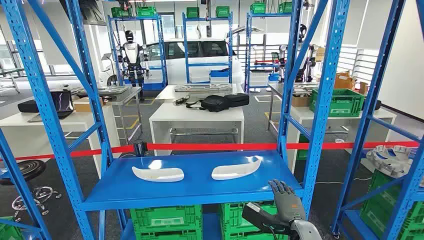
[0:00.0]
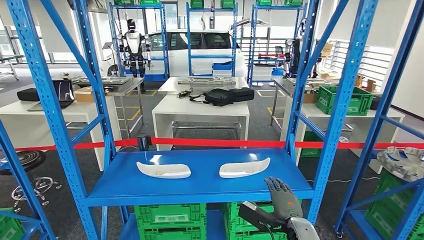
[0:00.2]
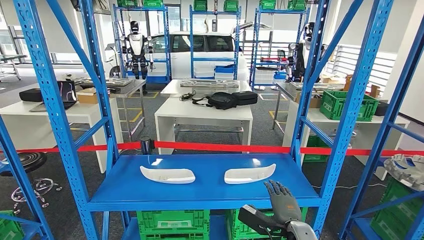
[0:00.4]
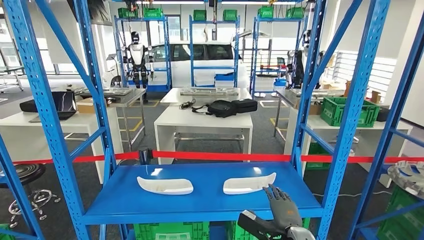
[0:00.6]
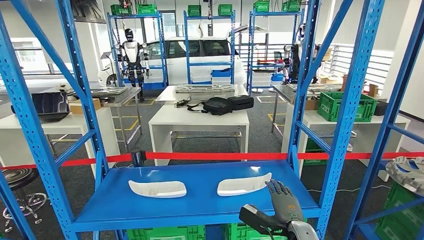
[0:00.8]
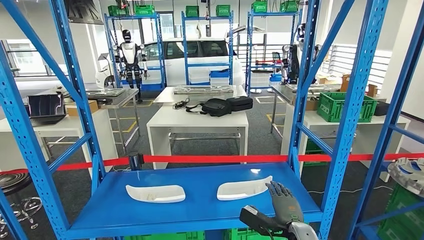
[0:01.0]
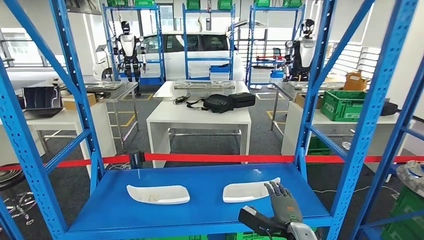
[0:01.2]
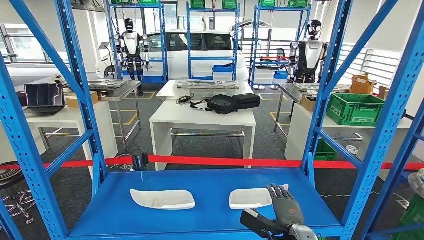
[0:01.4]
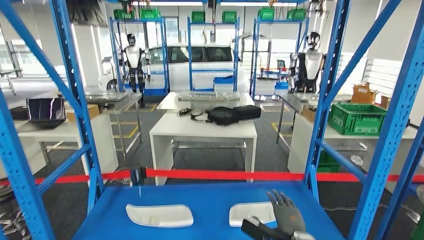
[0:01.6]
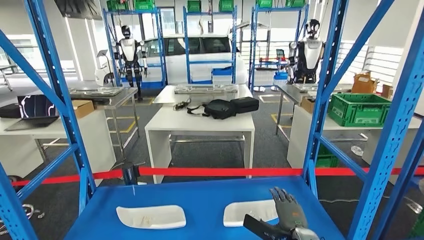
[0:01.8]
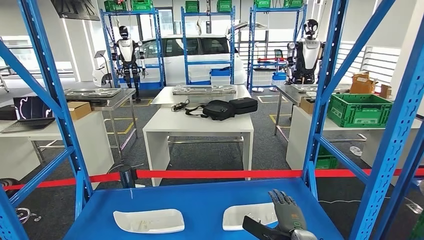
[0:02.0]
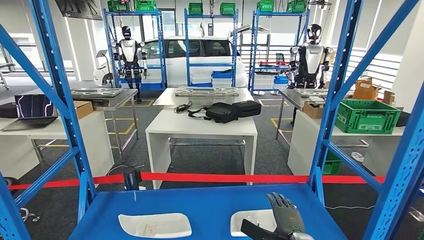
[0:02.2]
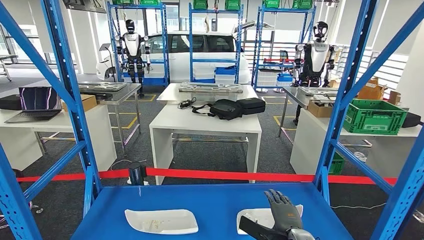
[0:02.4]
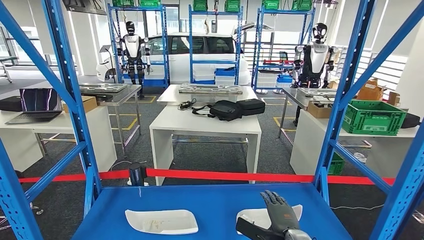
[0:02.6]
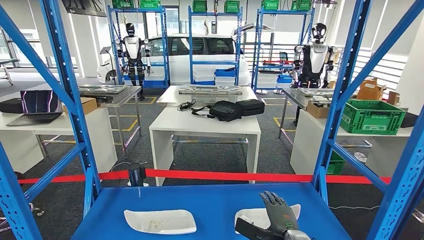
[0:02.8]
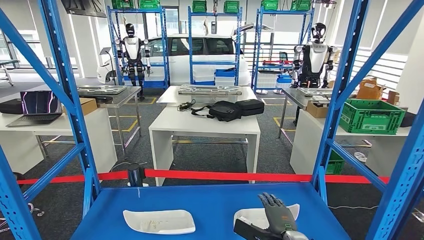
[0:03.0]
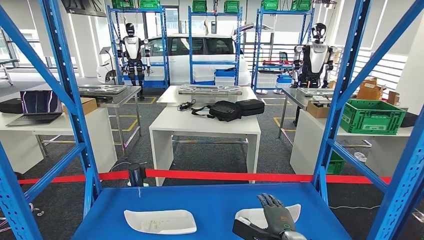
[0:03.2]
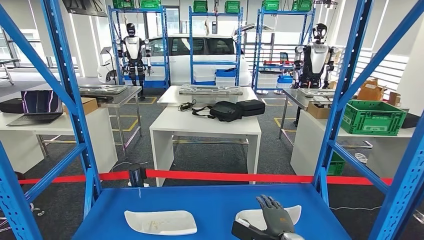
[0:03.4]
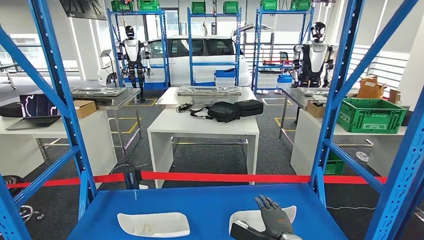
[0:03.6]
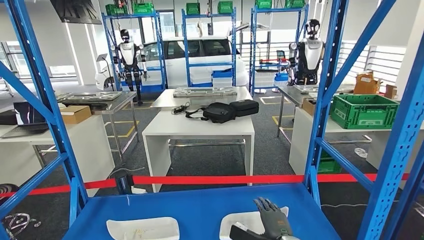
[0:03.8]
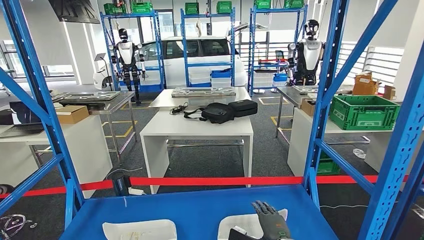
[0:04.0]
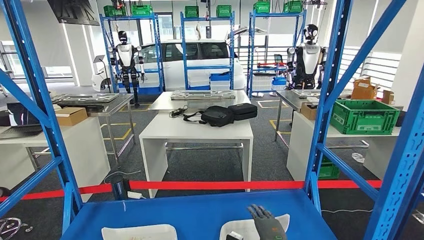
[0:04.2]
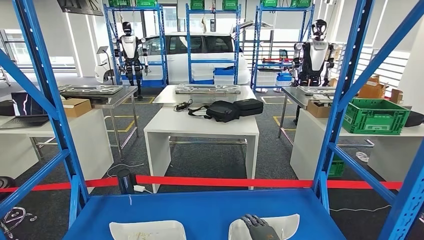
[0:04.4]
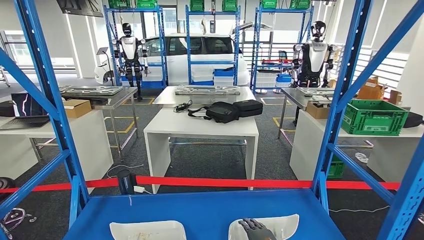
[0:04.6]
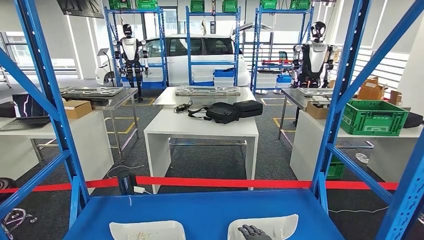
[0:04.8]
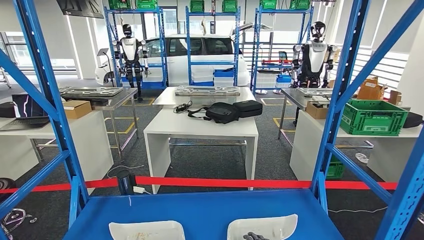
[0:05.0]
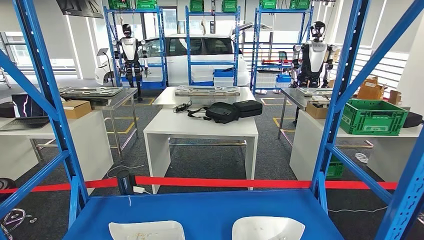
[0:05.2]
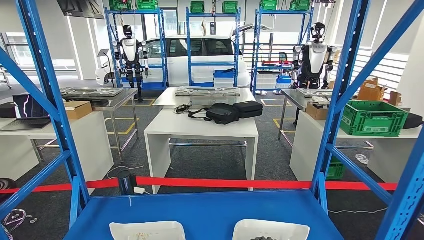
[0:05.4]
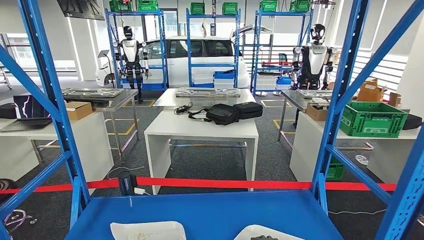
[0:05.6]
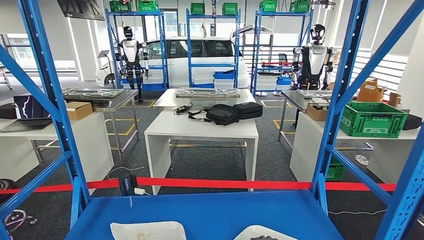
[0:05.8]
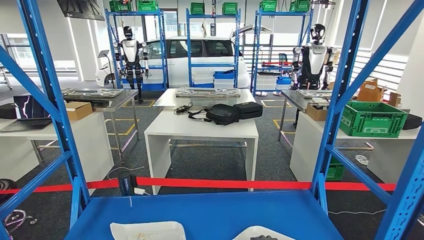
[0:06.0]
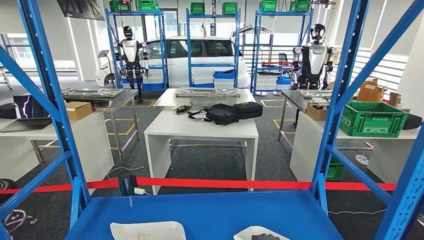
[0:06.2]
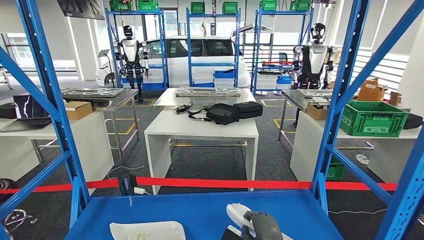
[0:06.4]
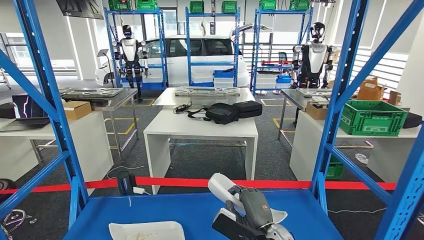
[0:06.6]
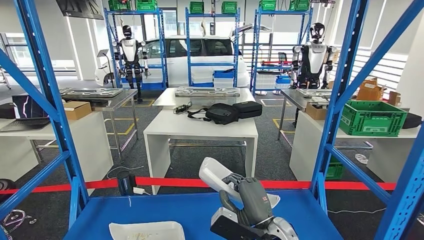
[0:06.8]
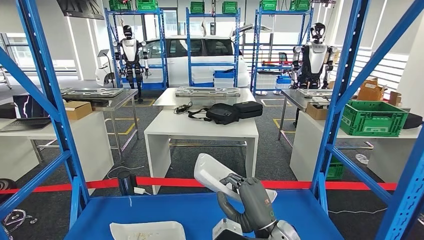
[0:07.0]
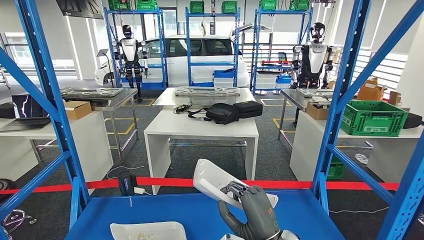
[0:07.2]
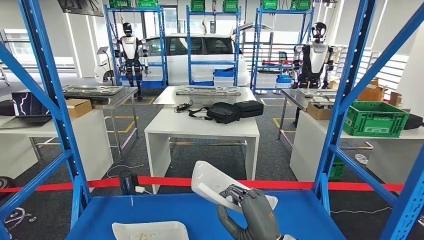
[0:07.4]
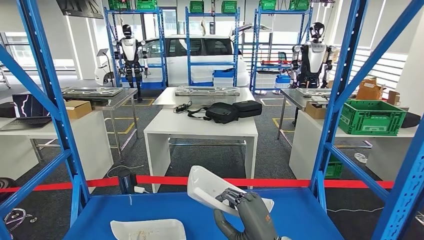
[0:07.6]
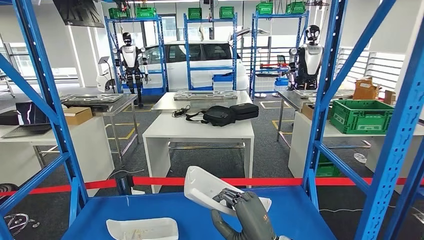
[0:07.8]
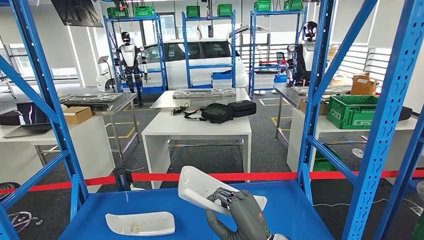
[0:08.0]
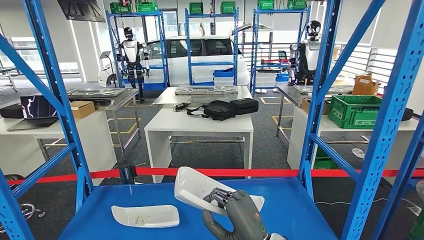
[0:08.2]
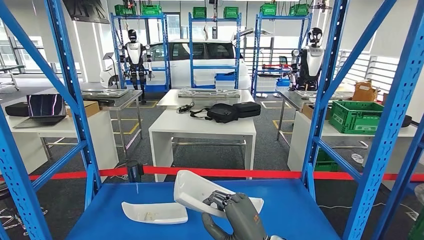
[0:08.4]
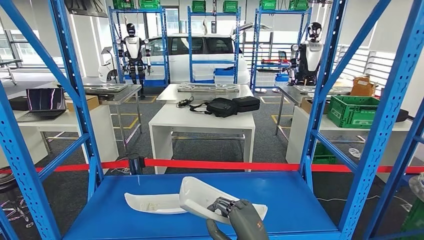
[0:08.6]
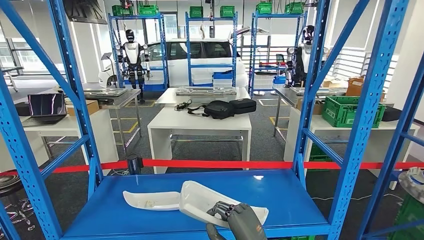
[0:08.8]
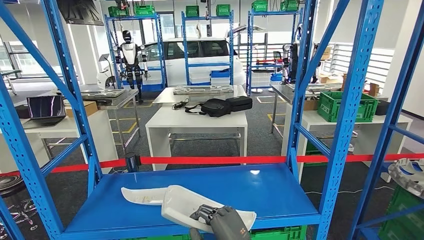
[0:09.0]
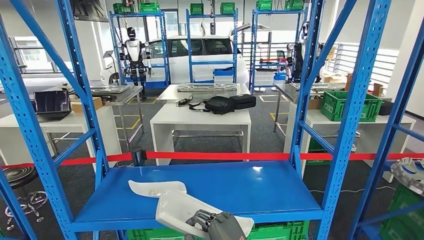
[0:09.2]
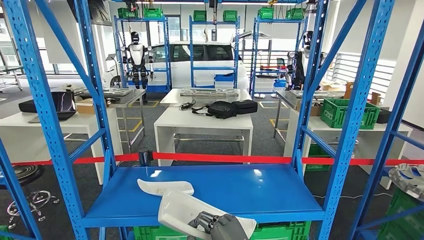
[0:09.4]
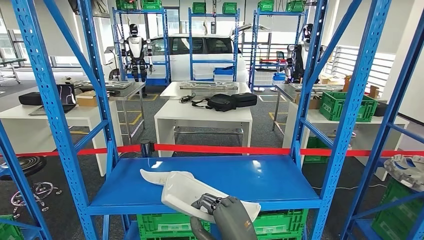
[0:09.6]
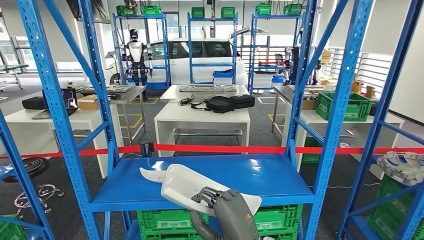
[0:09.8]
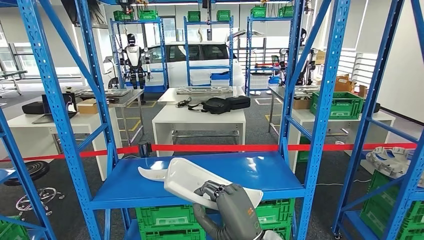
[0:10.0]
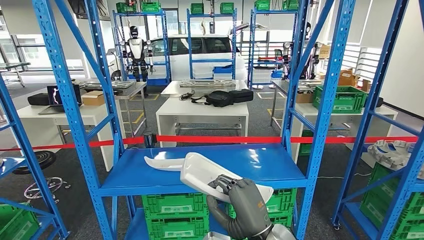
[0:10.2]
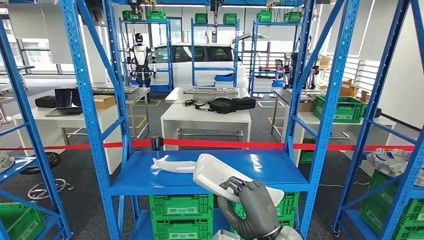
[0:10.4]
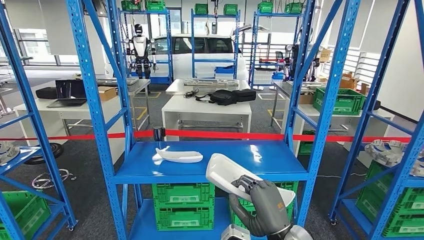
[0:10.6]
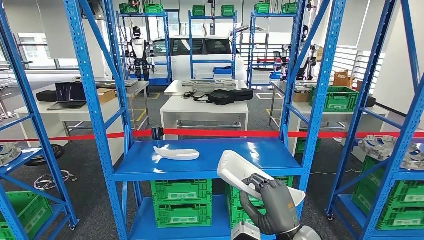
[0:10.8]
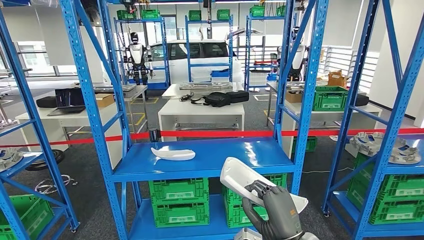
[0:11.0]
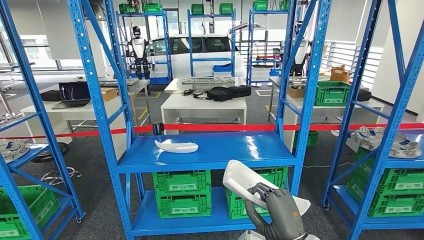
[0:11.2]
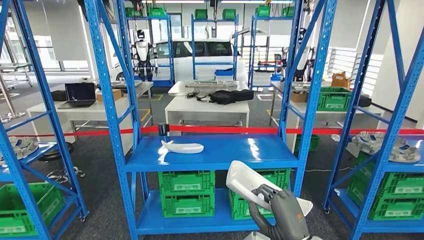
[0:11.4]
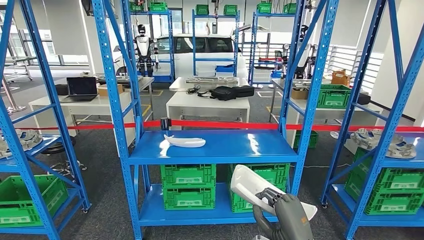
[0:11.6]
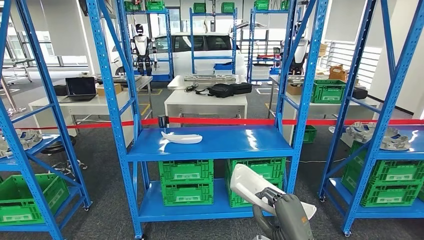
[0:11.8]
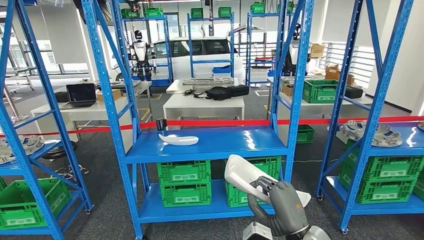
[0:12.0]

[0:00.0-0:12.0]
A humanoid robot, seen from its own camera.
Step, 0:00.0 to 0:07.8: Pick up the small component from the shelf.

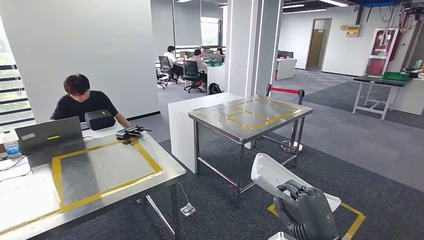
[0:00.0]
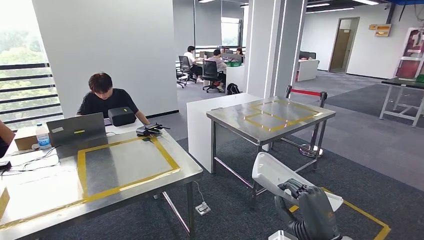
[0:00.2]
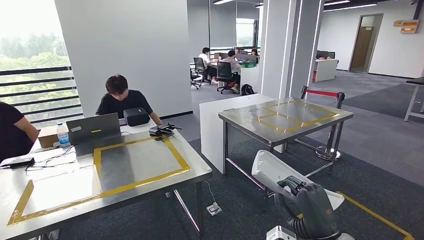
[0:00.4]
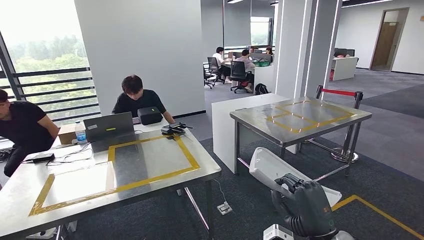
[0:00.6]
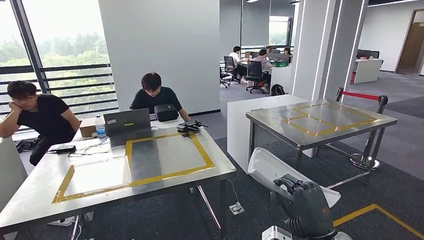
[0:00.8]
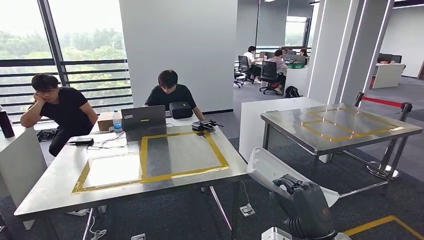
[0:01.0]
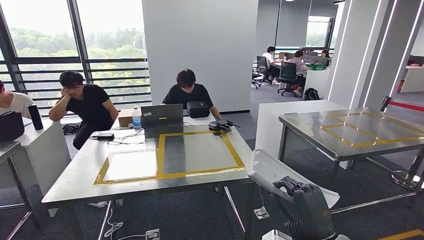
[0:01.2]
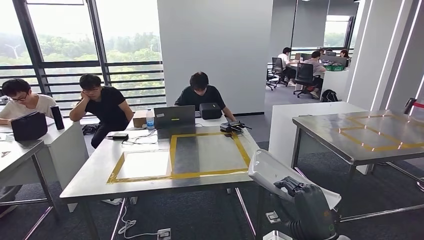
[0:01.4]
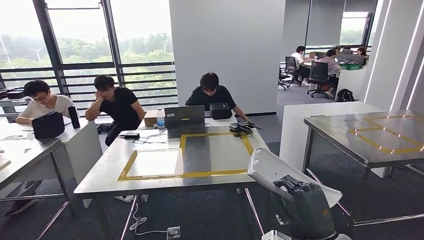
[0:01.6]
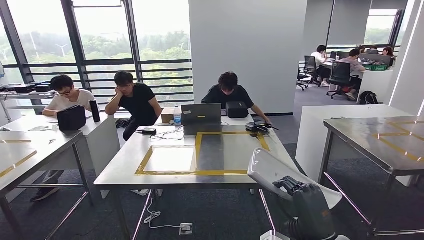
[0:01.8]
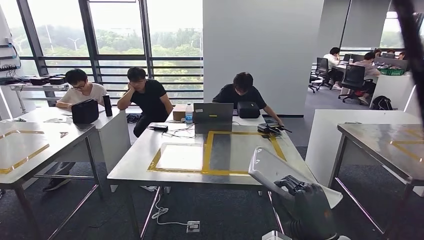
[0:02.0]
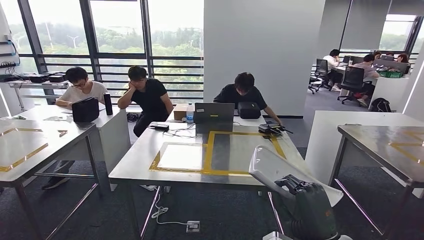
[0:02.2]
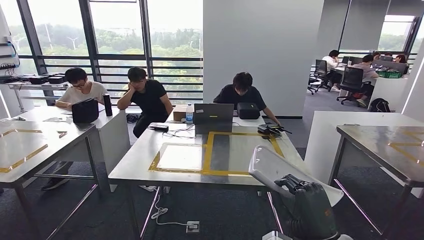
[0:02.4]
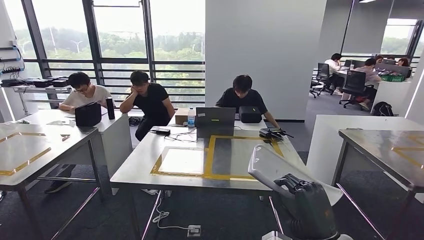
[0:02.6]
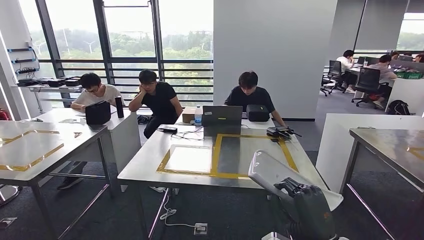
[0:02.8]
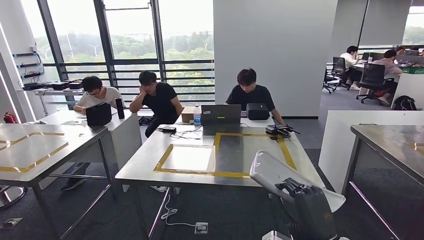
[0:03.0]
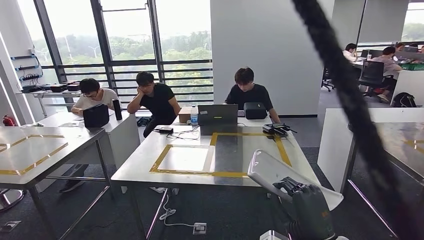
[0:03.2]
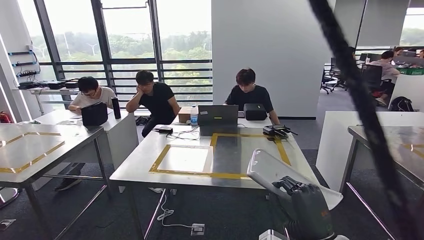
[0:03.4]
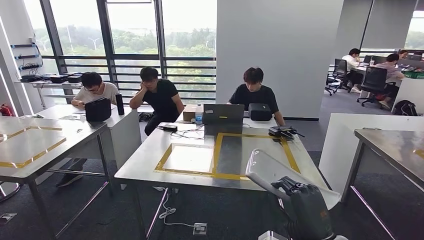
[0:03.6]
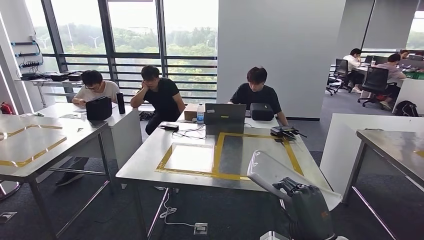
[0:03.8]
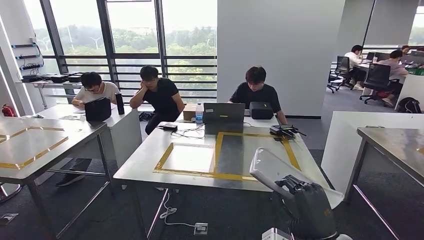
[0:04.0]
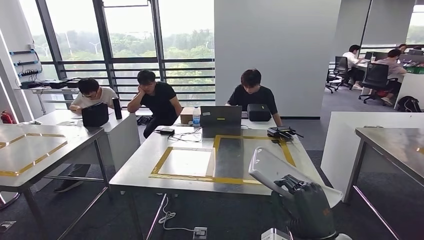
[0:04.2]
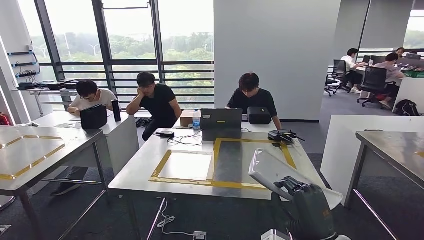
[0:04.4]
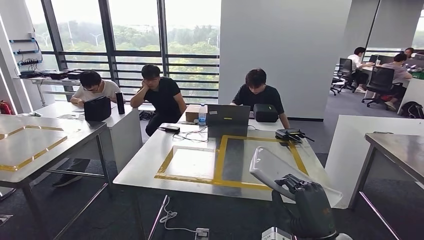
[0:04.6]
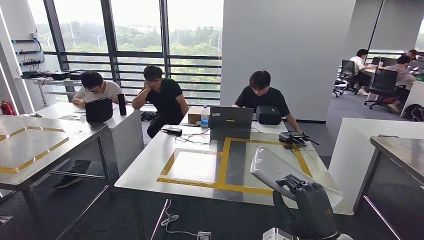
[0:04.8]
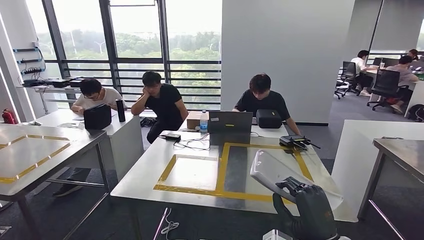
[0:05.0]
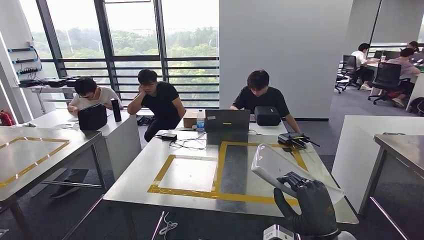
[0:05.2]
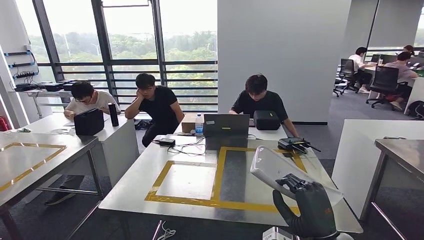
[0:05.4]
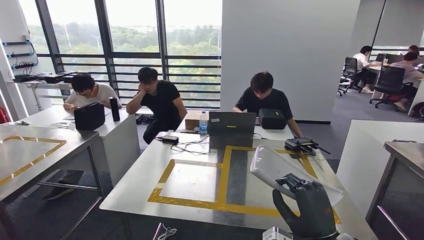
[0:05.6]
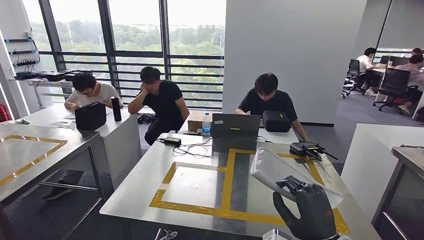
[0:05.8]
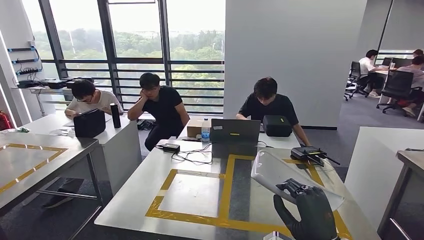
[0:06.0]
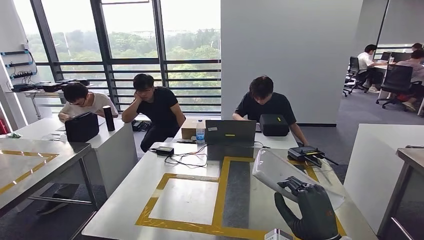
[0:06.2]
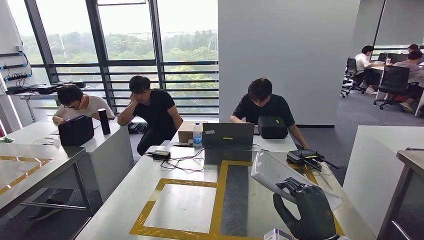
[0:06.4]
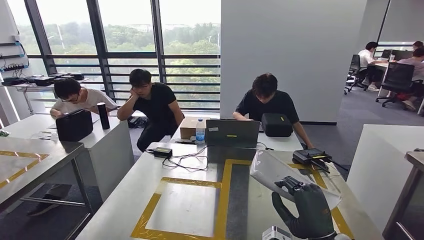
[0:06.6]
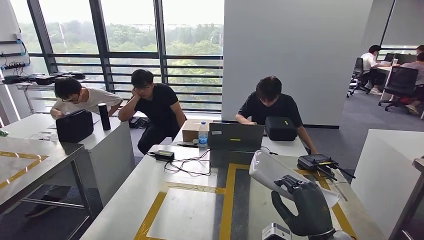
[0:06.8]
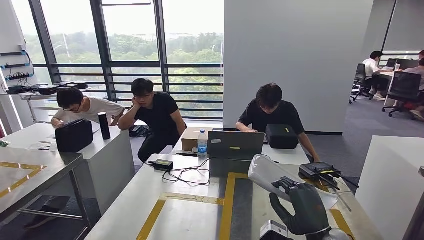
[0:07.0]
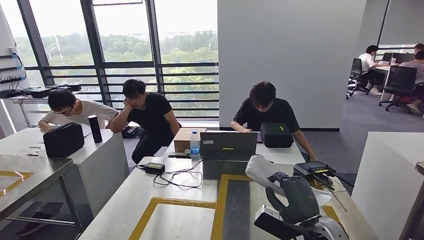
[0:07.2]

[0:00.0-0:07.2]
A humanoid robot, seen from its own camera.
Step, 0:00.0 to 0:05.0: Move the small component to the workbench.
